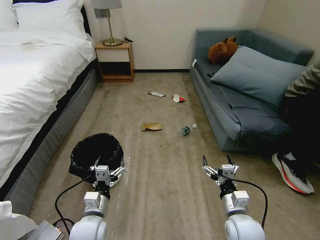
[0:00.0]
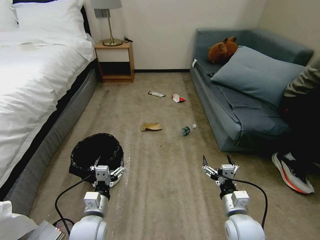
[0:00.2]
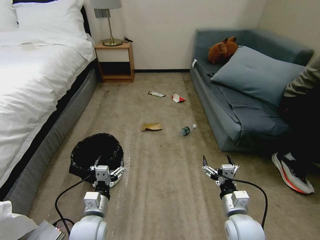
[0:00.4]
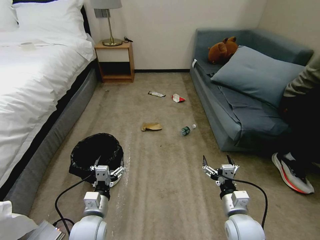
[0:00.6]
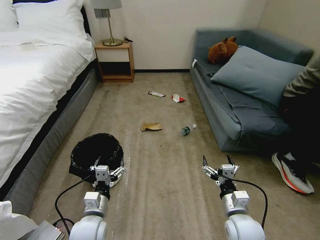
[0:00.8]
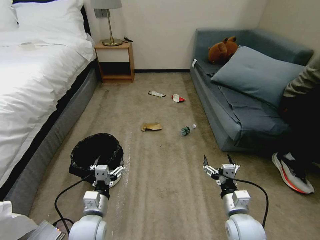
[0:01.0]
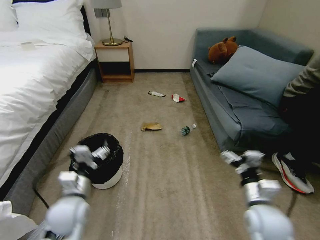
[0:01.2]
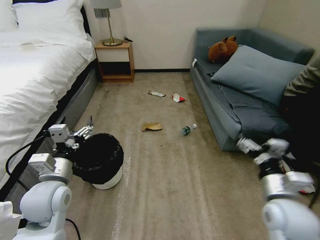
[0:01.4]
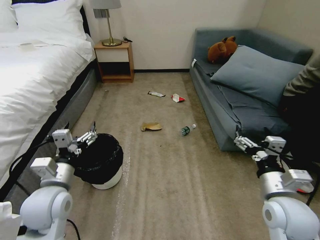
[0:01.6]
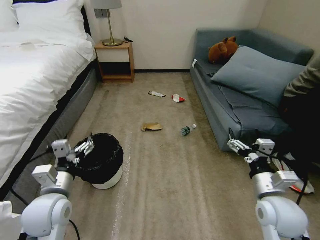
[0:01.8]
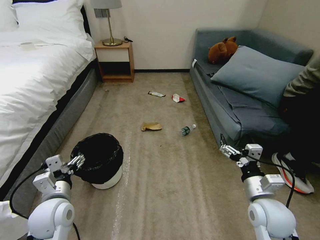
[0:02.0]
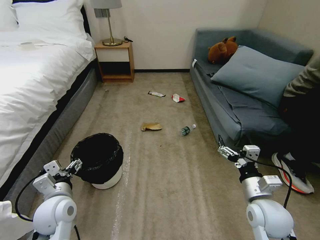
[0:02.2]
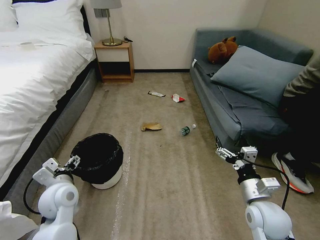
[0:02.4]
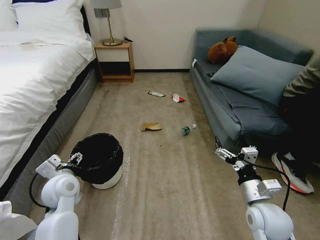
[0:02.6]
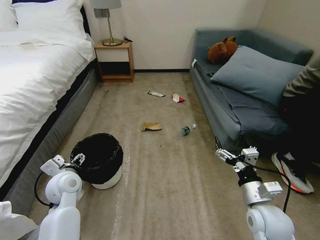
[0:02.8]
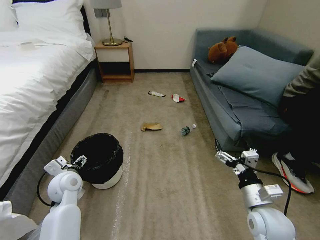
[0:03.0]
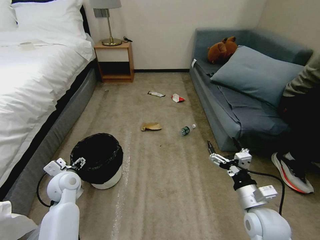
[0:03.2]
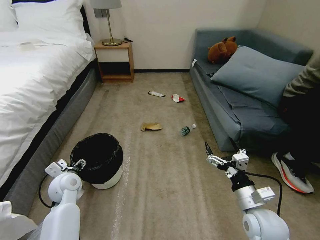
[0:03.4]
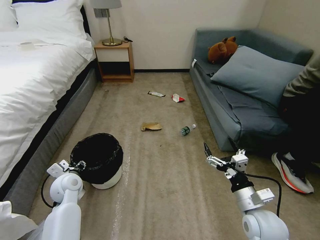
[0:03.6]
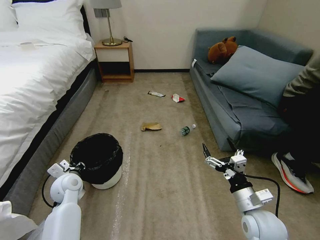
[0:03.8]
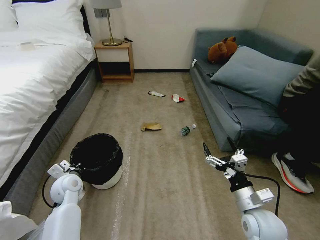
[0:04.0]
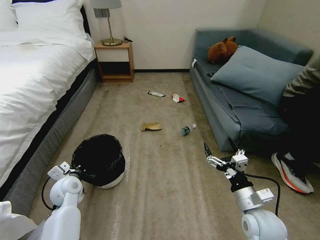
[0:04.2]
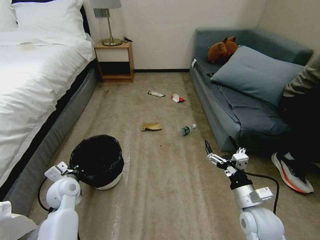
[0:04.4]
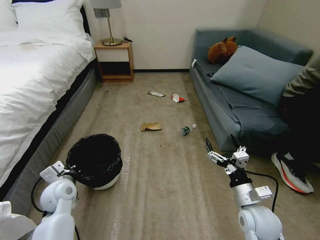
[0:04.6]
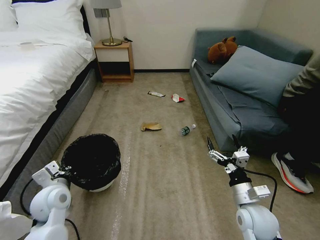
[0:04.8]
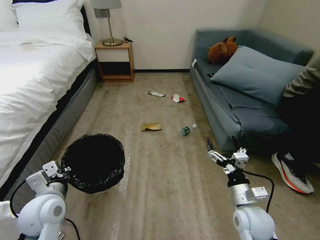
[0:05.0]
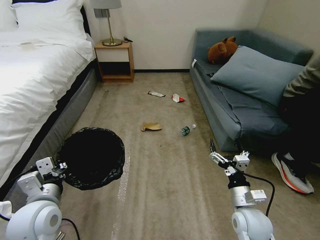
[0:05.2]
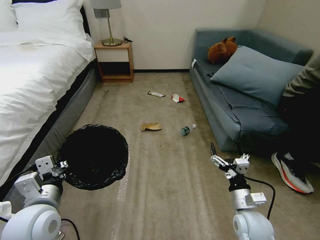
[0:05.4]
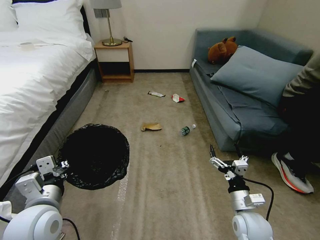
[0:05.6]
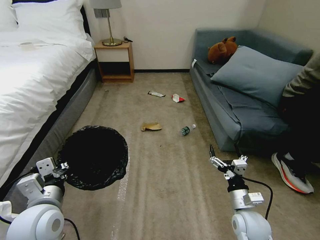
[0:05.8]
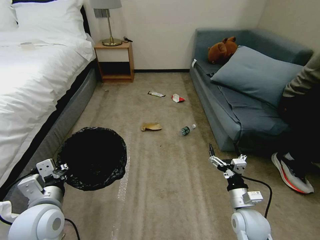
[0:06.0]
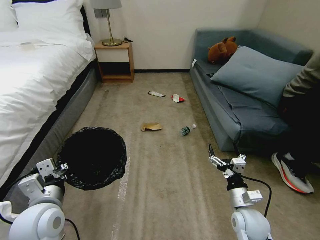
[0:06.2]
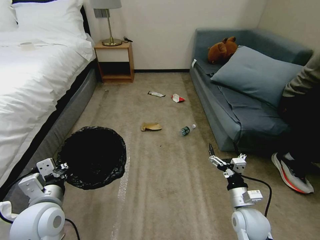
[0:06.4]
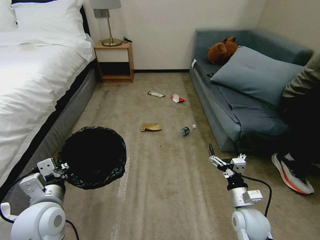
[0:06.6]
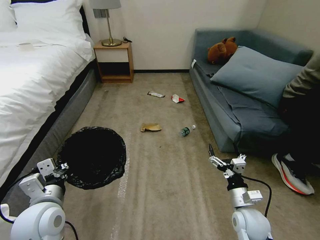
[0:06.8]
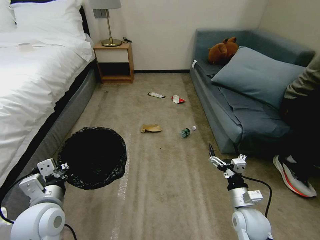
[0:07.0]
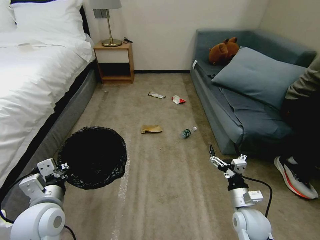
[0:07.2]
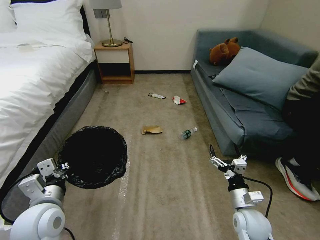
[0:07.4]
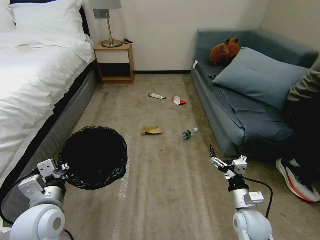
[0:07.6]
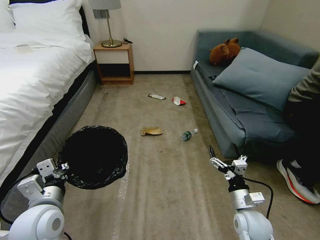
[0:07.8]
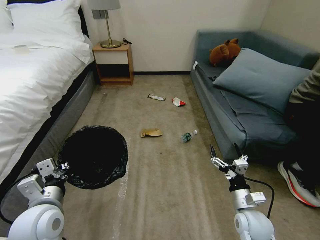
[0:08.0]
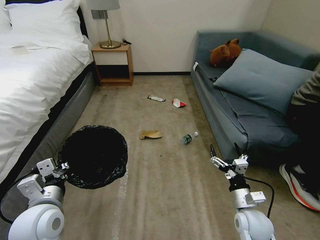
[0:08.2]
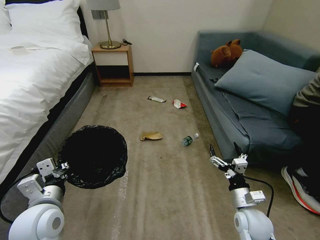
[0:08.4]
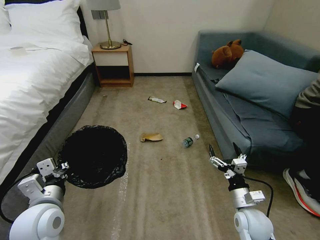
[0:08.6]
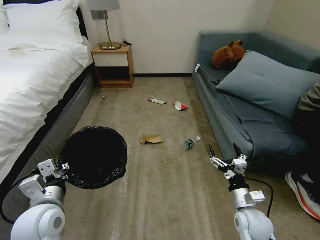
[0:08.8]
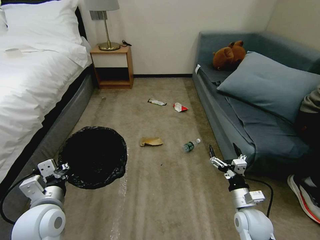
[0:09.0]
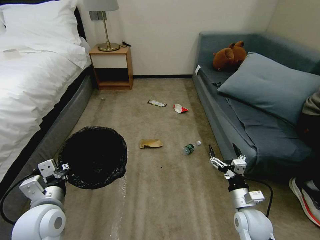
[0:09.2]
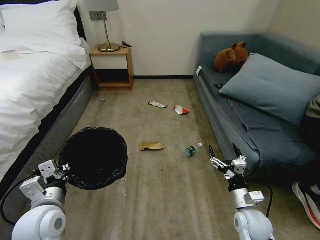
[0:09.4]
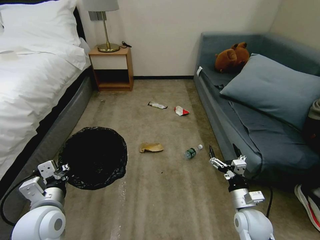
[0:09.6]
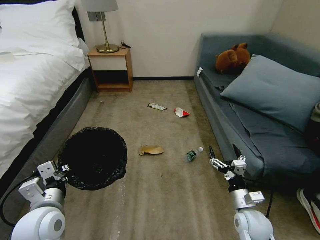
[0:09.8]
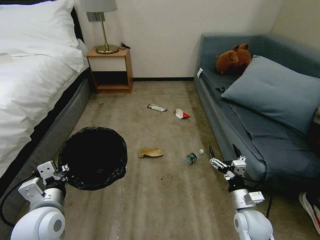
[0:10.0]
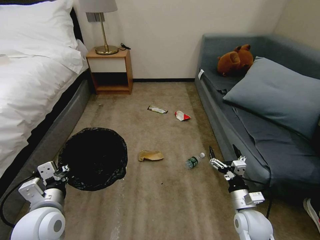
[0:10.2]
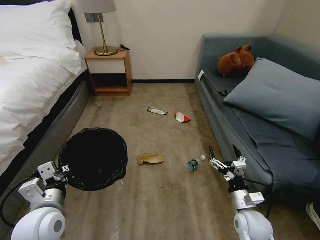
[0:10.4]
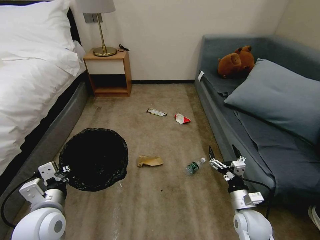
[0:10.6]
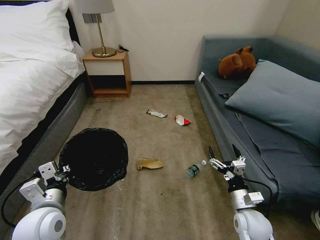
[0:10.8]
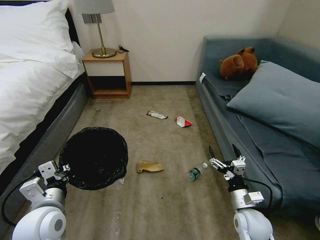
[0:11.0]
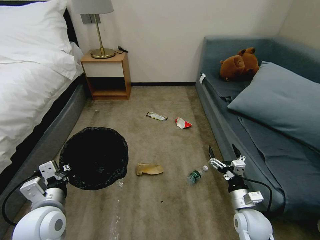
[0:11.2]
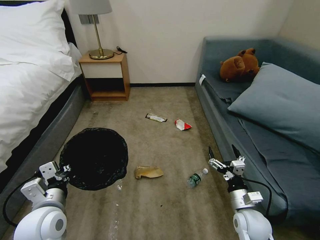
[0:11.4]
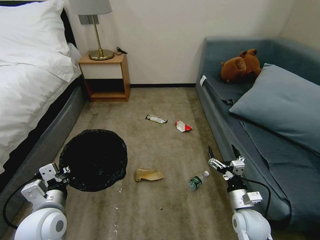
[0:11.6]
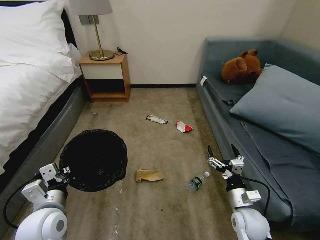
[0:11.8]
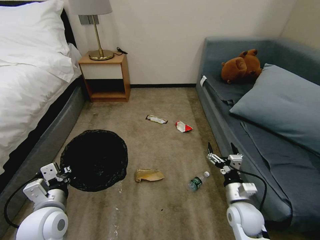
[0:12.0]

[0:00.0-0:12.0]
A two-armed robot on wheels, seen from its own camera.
Task of the whole recording: Pick up the trash bin, then pick up the garbage on the floor and place it into the trash bin.
0:01.6 to 0:03.0: The right gripper goes approximately 5 cm downward; the left gripper shifts approximately 15 cm forward and downward.
0:03.0 to 0:04.4: The left gripper closes its fingers.
0:04.4 to 0:06.0: The right gripper shifts approximately 5 cm downward. Meanwhile the left gripper moves backward and upward, about 15 cm.
0:06.0 to 0:09.0: Both grippers stay put.

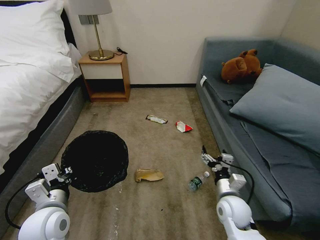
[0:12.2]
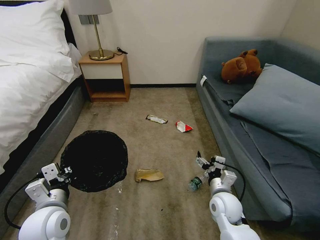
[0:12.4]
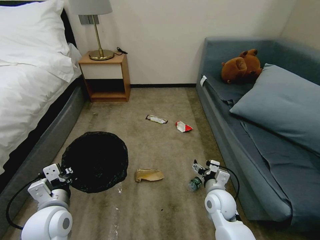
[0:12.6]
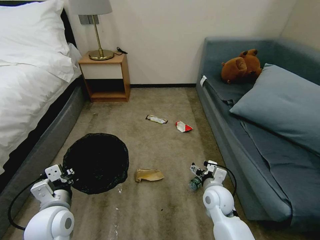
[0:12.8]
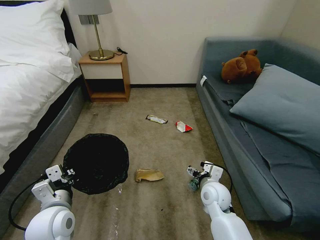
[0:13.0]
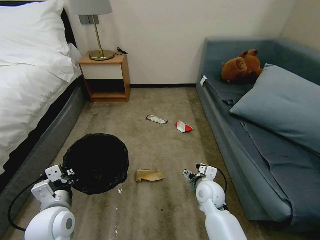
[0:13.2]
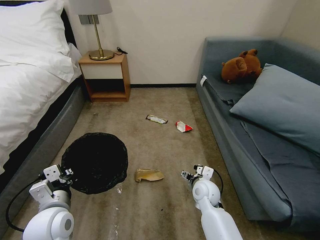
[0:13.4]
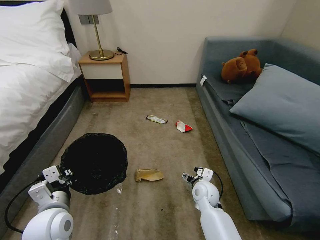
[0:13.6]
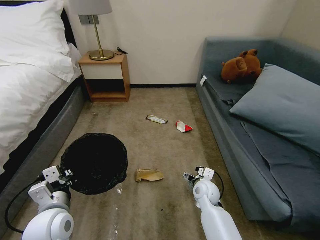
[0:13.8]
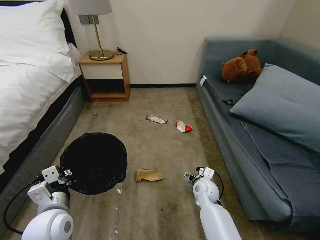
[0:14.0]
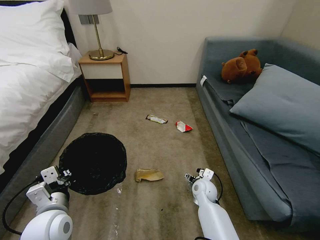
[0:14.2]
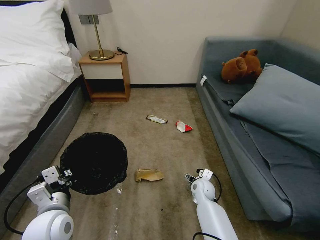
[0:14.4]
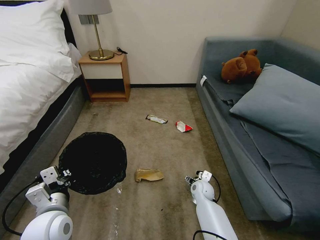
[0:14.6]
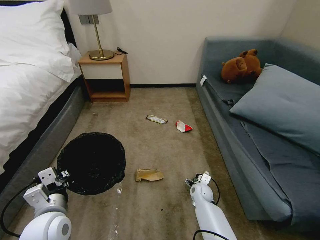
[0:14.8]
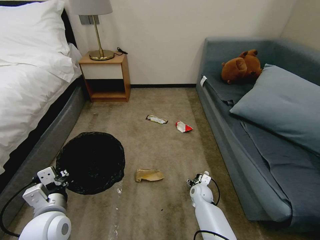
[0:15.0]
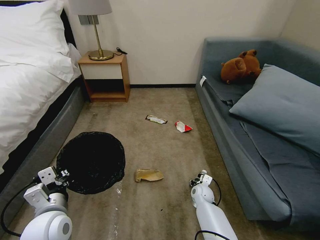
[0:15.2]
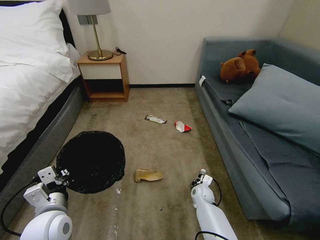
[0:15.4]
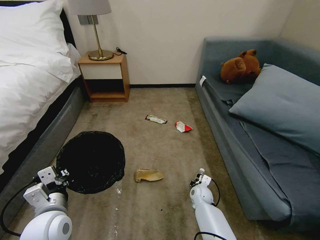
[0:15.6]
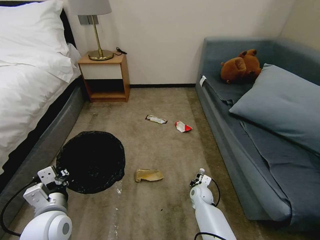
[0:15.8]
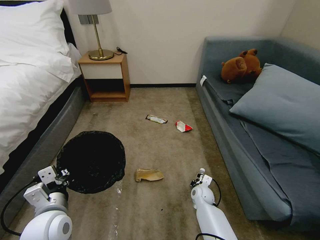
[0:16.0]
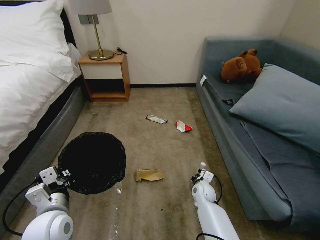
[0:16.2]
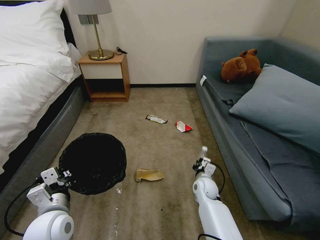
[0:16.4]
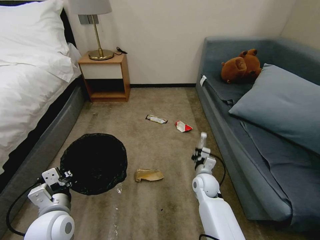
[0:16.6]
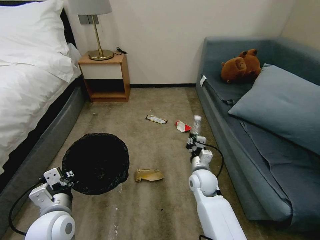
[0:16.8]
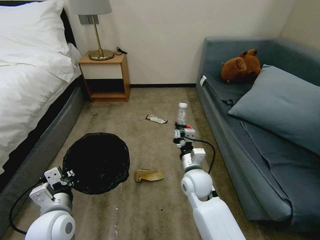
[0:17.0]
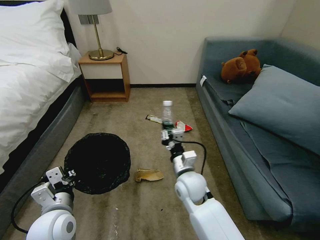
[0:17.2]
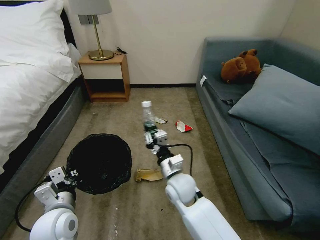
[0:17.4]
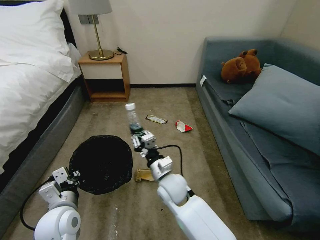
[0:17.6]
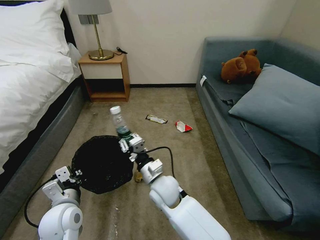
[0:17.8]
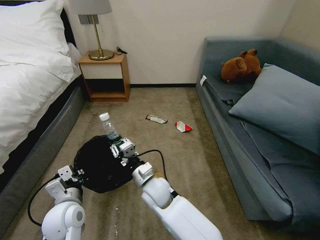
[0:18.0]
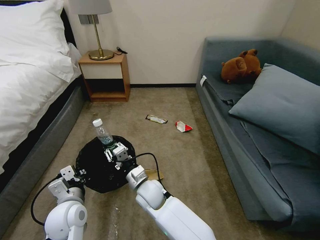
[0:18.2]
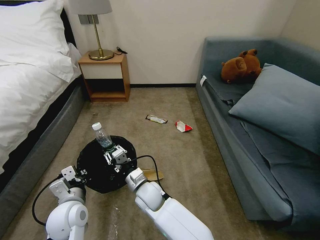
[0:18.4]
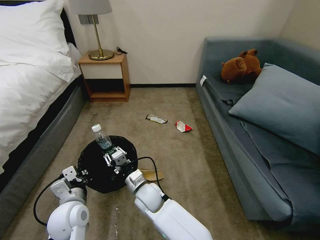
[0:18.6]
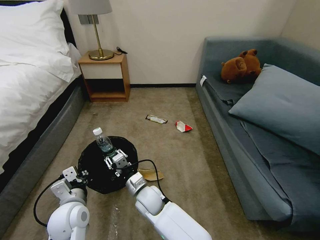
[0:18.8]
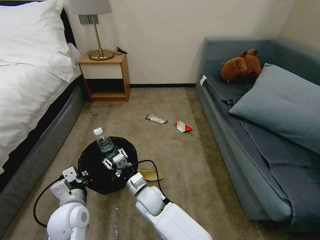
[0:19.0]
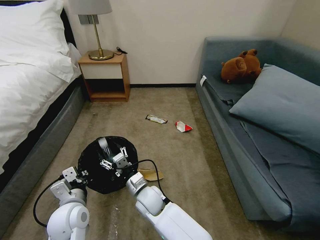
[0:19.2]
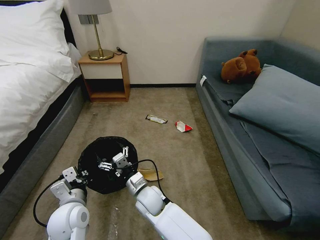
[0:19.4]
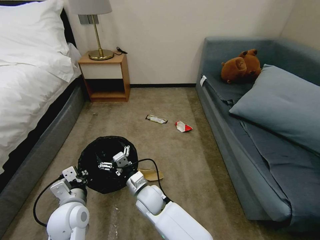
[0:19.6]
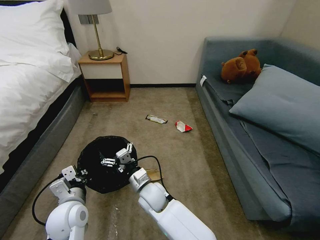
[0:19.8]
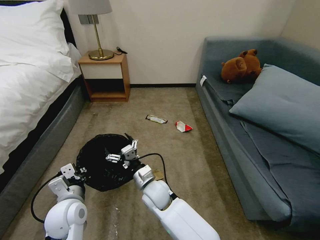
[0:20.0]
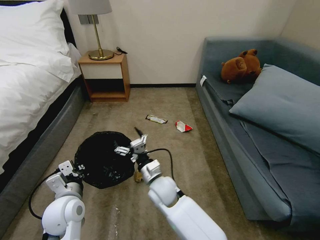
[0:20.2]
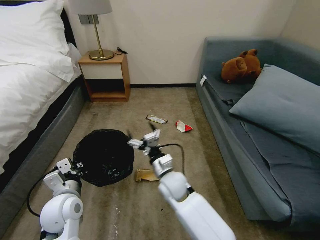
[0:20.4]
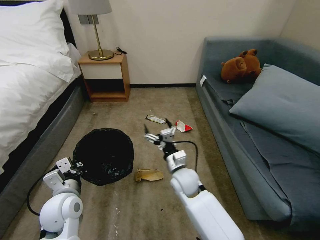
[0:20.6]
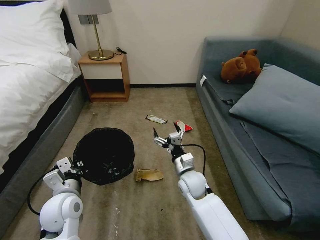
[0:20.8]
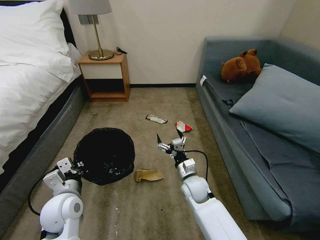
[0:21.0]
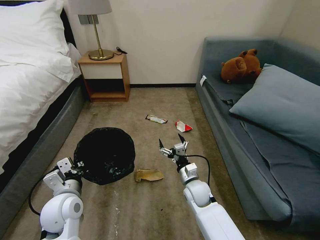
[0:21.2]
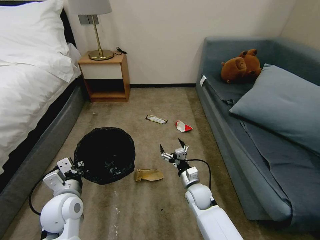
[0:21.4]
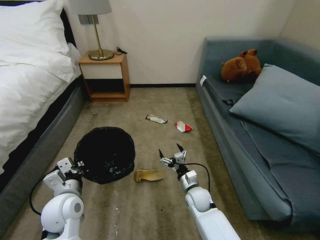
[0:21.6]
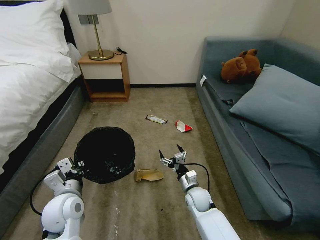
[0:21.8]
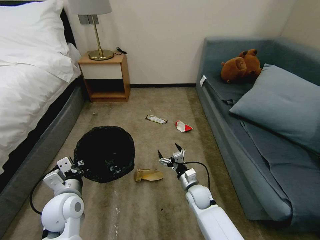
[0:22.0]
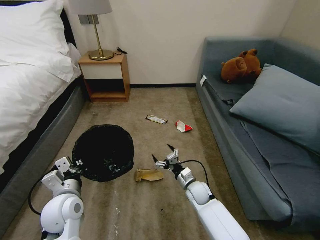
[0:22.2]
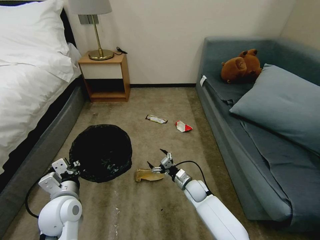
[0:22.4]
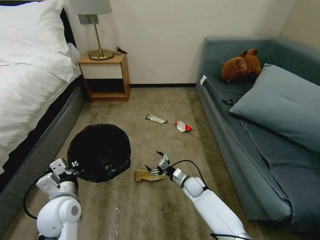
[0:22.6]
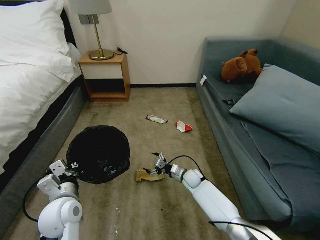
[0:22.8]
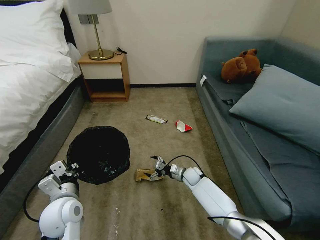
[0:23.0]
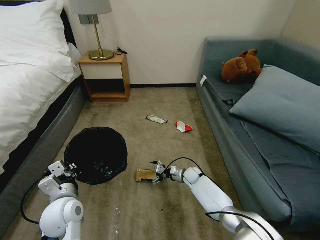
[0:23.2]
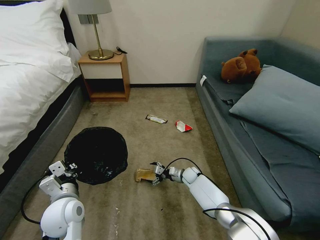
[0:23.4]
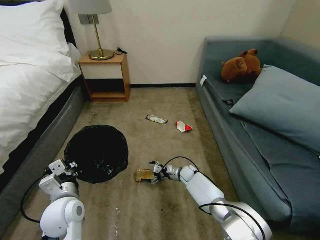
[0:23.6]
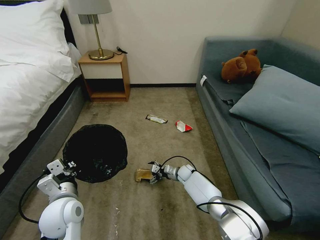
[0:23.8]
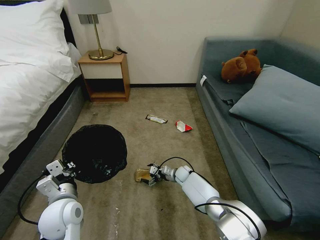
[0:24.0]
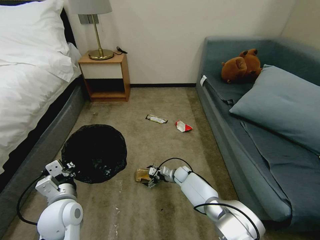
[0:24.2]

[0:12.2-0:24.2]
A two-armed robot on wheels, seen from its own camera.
Task of the whole recording: Pick up the trash bin, then pick up the garbage on the floor and place it into the trash bin.
0:12.2 to 0:13.8: The right gripper goes about 10 cm forward and to the left.
0:13.8 to 0:15.2: The right gripper goes approximately 10 cm downward.
0:15.2 to 0:16.6: The right gripper heads upward, covering roughly 10 cm, and closes up.
0:16.6 to 0:18.2: The right gripper moves to the left, approximately 20 cm.
0:18.2 to 0:19.8: The right gripper opens up.
0:19.8 to 0:21.2: The right gripper shifts approximately 15 cm to the right.
0:21.2 to 0:22.6: The right gripper is displaced downward and forward by about 10 cm.
0:22.6 to 0:24.2: The right gripper shifts approximately 5 cm forward.
